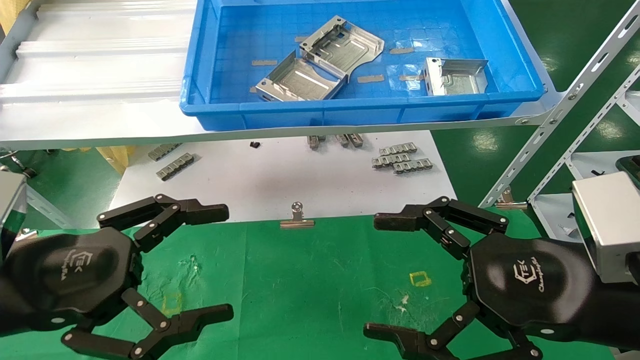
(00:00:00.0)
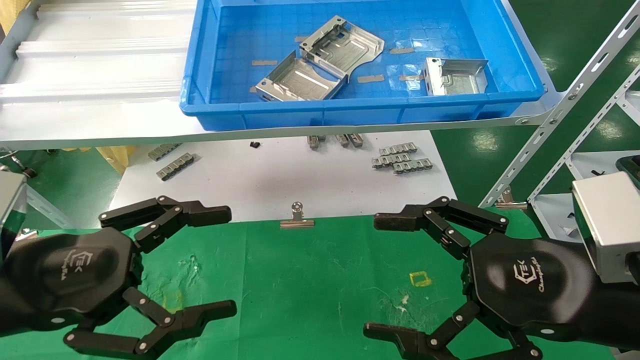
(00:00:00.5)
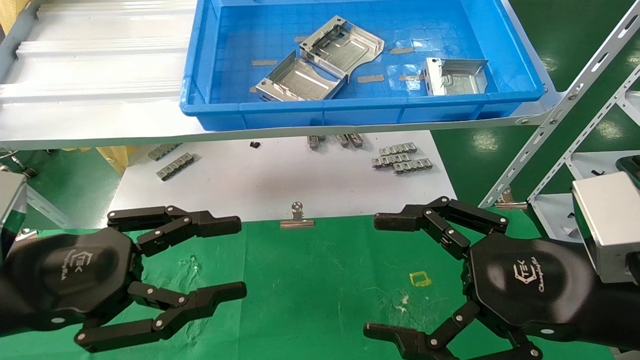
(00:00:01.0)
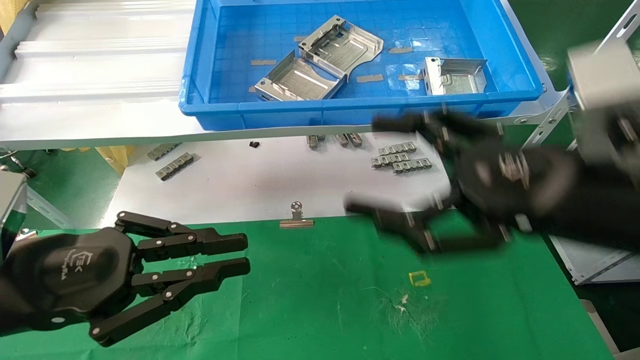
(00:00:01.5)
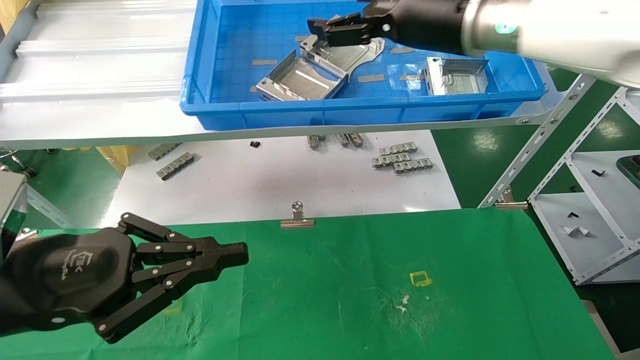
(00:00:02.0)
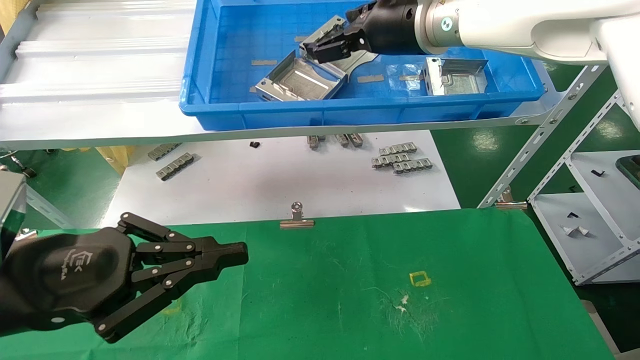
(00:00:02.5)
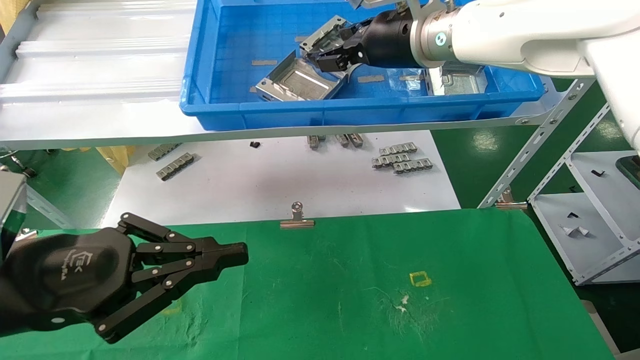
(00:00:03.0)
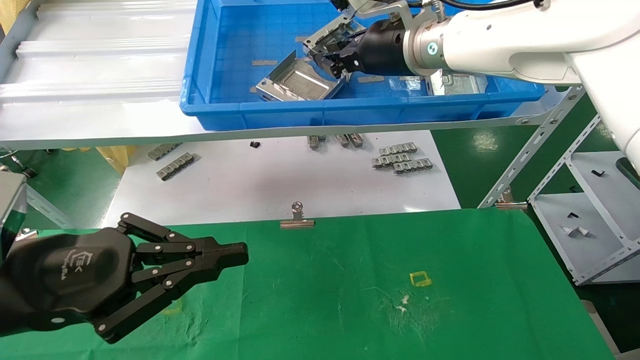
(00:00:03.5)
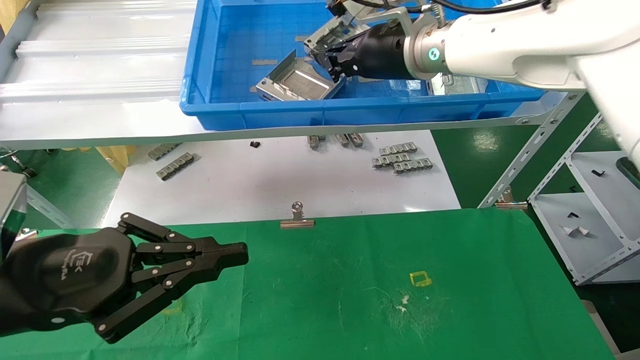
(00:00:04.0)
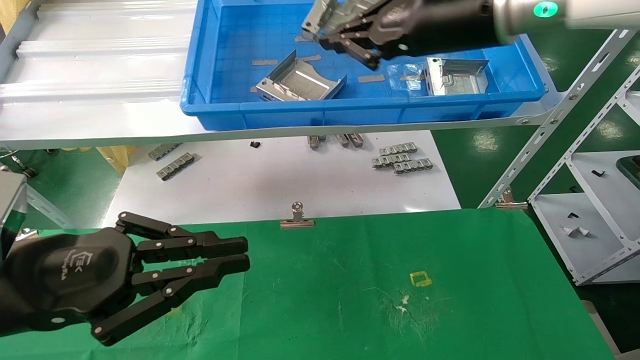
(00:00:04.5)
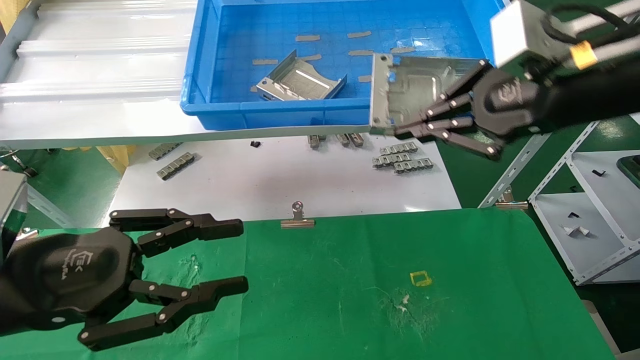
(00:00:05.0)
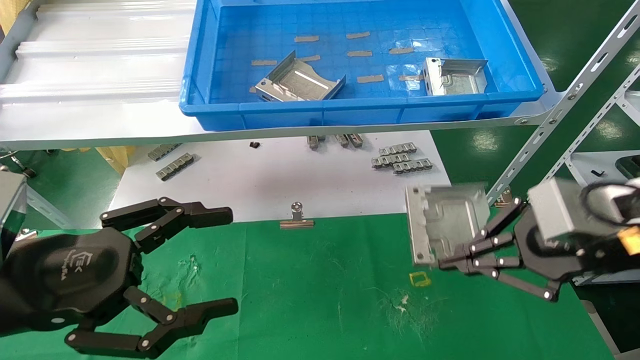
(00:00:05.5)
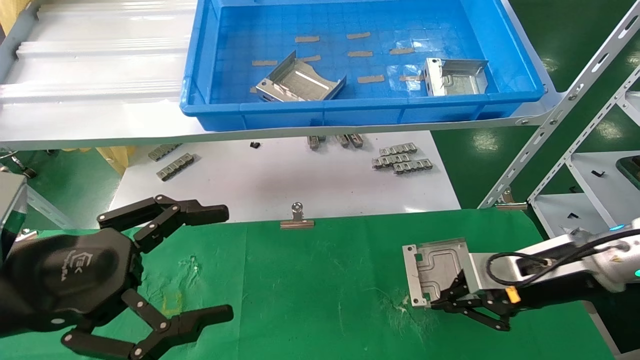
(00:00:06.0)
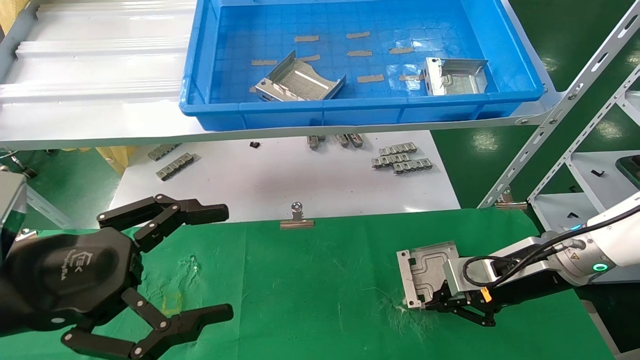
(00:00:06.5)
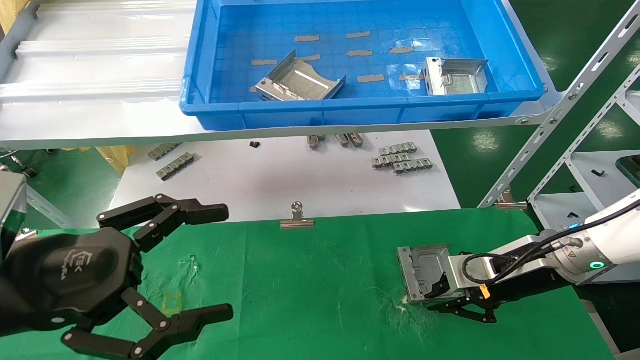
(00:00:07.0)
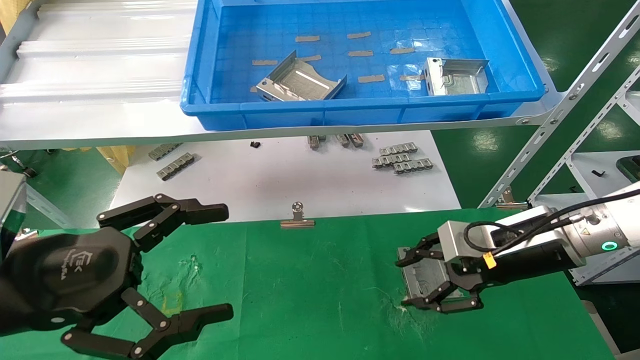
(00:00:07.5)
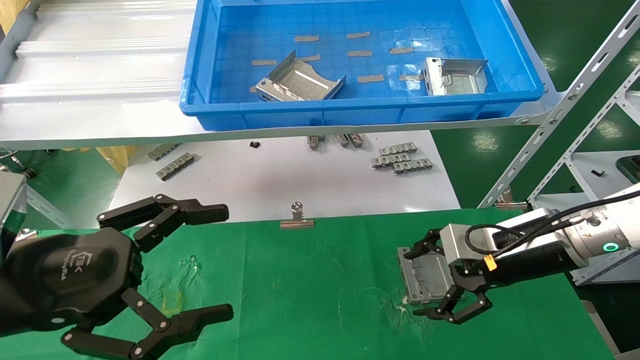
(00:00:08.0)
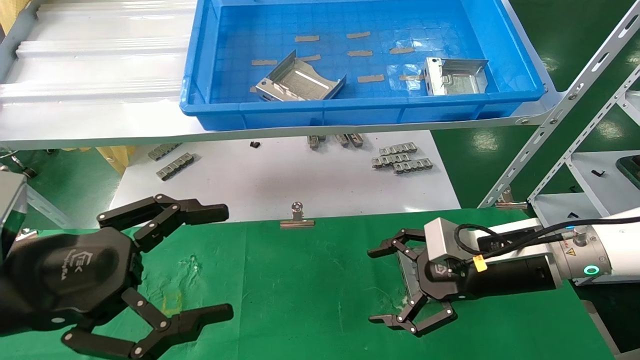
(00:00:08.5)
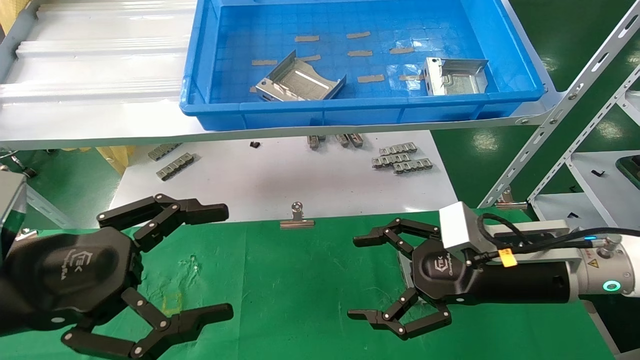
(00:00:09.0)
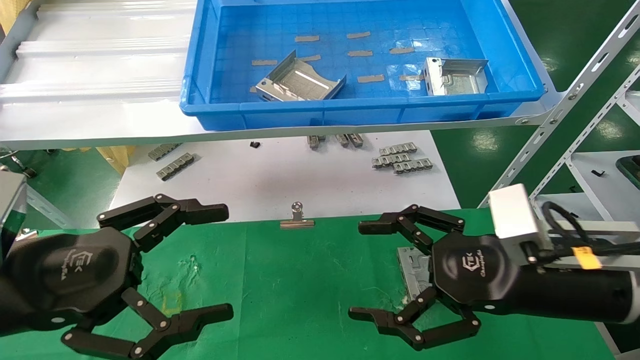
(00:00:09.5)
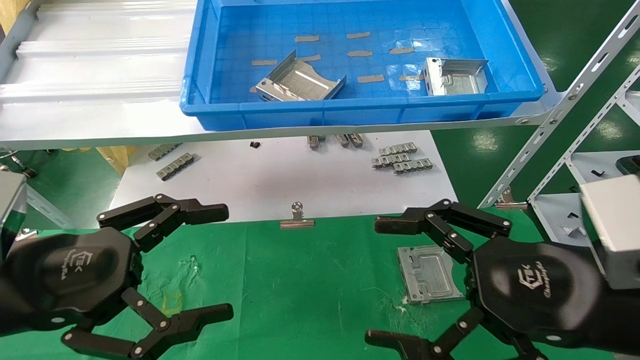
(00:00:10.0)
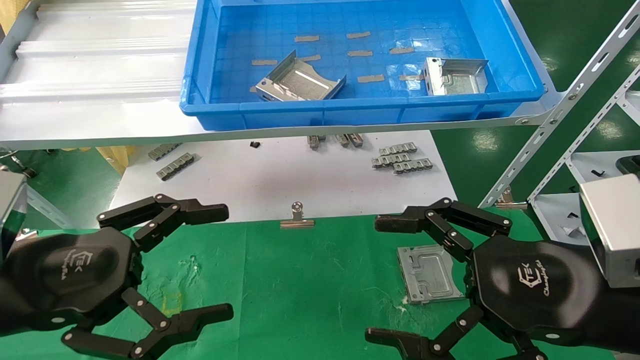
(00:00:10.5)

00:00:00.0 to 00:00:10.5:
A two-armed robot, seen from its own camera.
Task of the whole recording: use the mechanical arm to pick up the parts and place them on the table.
Step, 00:00:01.5 to 00:00:04.0: Pick up the hard drive bracket from the feeding area.
Step, 00:00:04.5 to 00:00:07.5: Place the hard drive bracket into the box.
00:00:00.0 to 00:00:02.0: The right gripper shifts about 30 cm upward, forward and to the left. The left gripper closes.
00:00:02.0 to 00:00:04.0: The right gripper shifts by roughly 5 cm, and closes.
00:00:04.0 to 00:00:06.5: The right gripper goes roughly 30 cm downward and to the right. Meanwhile the left gripper opens.
00:00:06.5 to 00:00:08.5: The right gripper is displaced to the left by some 5 cm, and opens up.
00:00:08.5 to 00:00:10.5: The right gripper goes roughly 15 cm backward.
